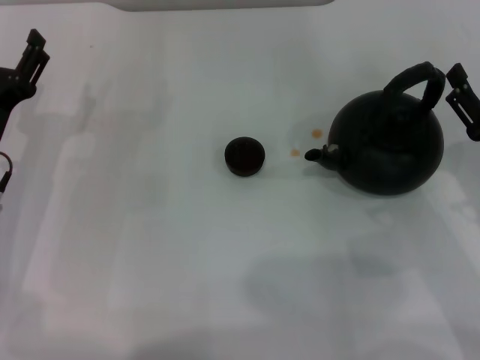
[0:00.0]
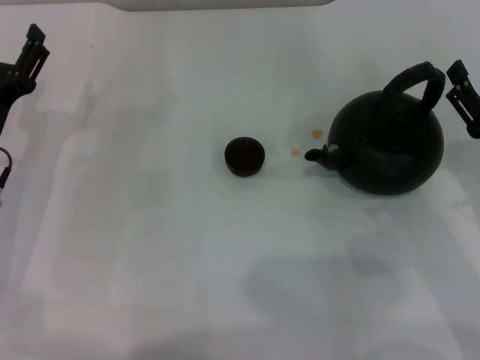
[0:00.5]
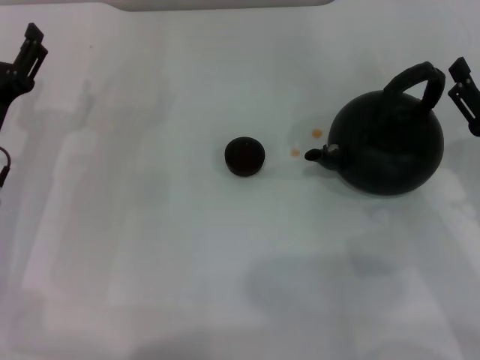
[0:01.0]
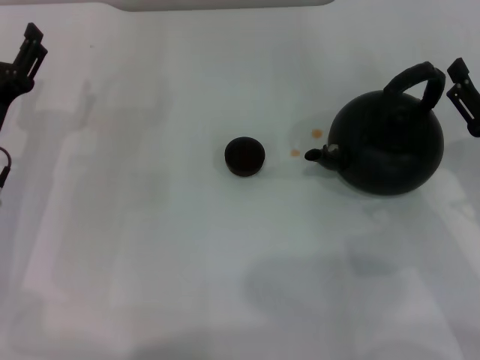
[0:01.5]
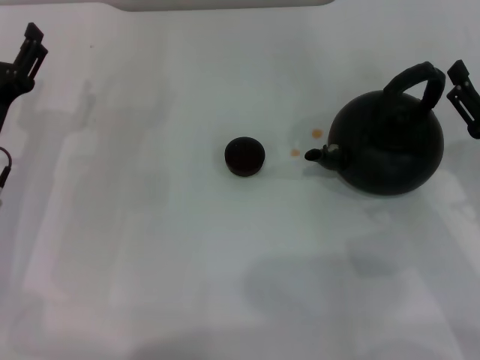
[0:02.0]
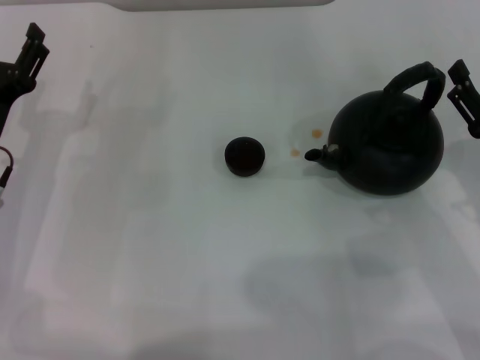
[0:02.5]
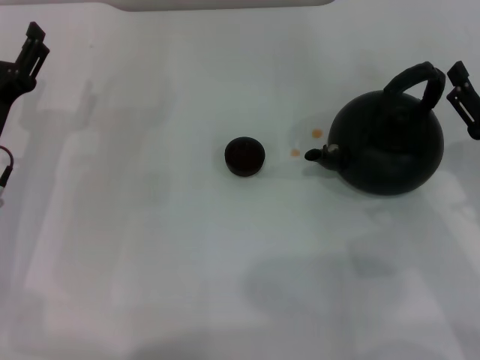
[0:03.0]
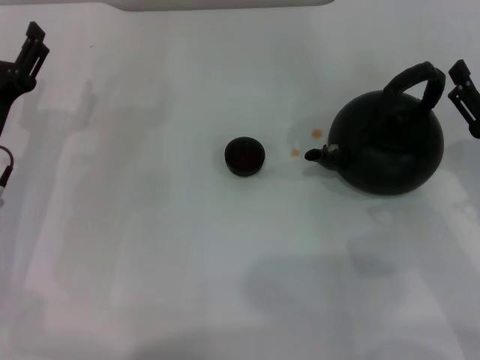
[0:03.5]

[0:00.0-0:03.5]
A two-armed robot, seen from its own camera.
Task of the whole recording: Grasp the handle of the teapot with one hand and pour tea into the teacup.
0:00.0 to 0:03.5: Neither gripper changes place.
